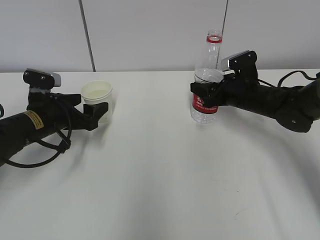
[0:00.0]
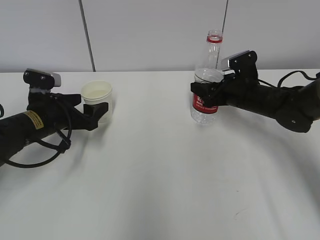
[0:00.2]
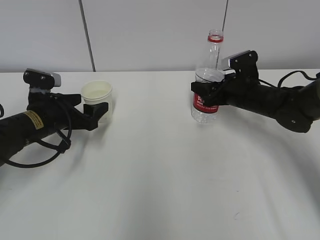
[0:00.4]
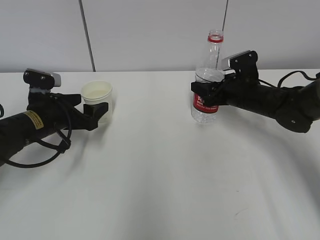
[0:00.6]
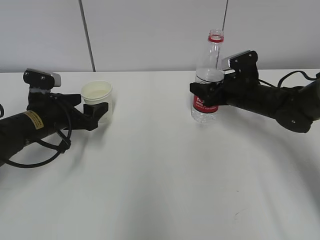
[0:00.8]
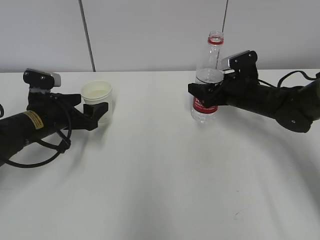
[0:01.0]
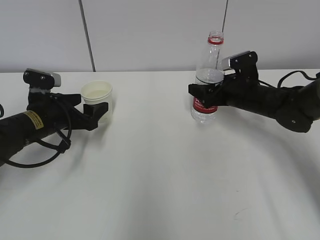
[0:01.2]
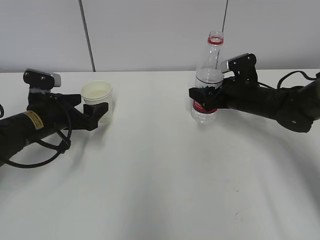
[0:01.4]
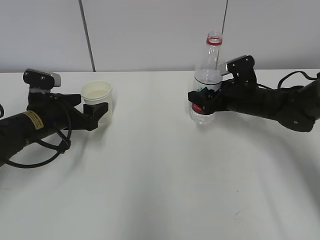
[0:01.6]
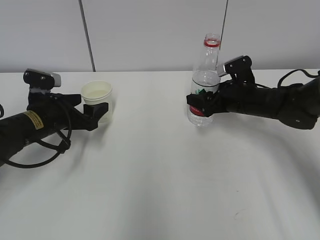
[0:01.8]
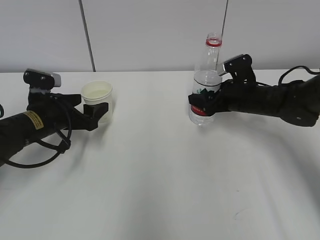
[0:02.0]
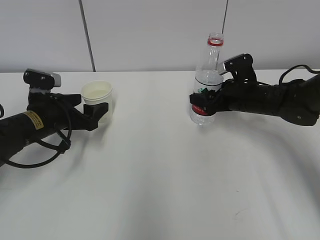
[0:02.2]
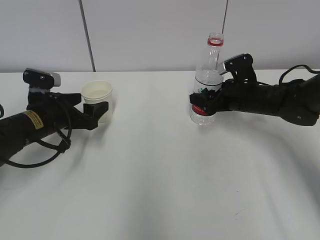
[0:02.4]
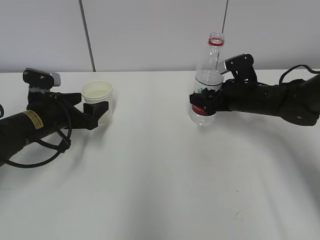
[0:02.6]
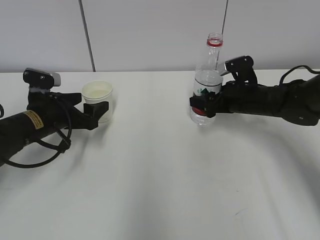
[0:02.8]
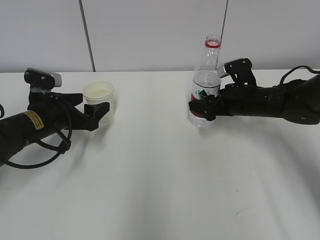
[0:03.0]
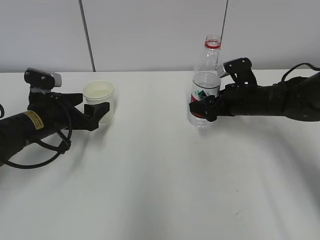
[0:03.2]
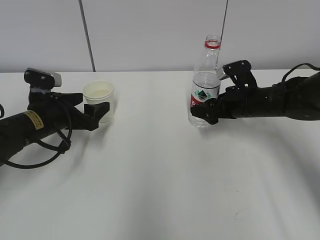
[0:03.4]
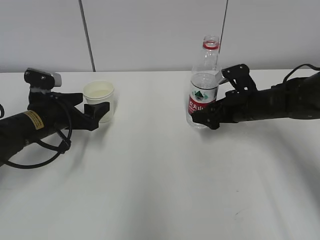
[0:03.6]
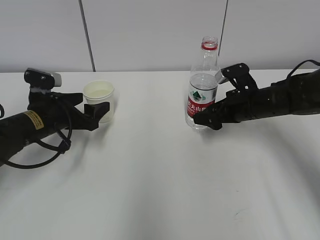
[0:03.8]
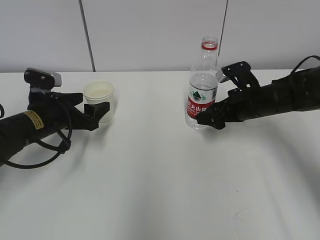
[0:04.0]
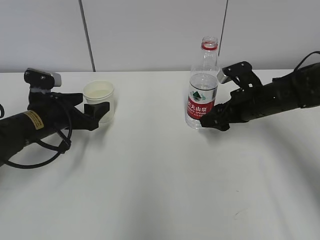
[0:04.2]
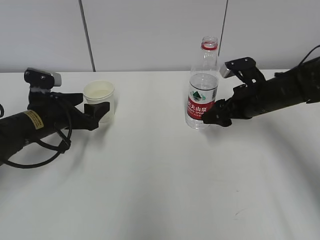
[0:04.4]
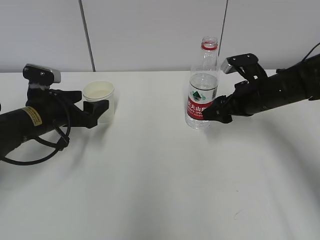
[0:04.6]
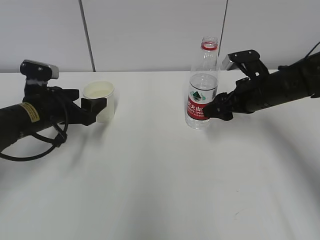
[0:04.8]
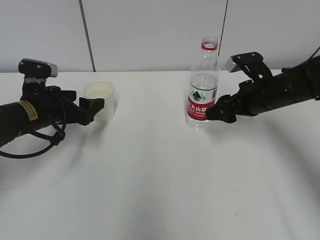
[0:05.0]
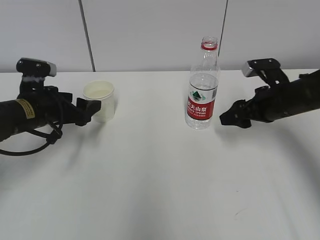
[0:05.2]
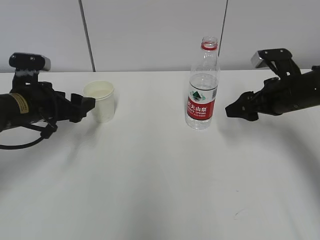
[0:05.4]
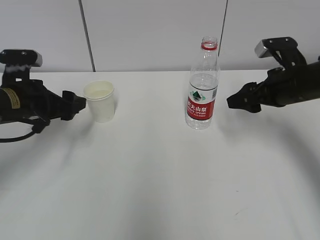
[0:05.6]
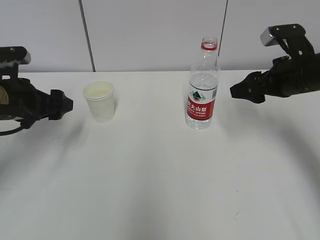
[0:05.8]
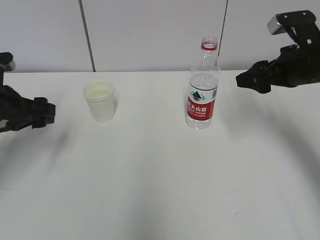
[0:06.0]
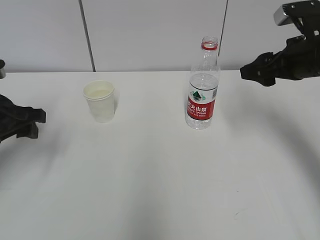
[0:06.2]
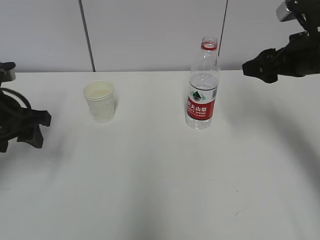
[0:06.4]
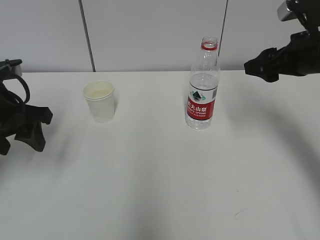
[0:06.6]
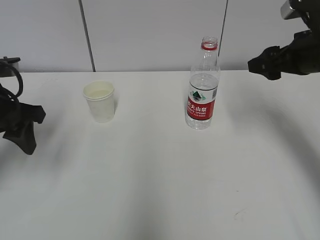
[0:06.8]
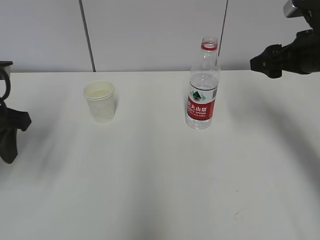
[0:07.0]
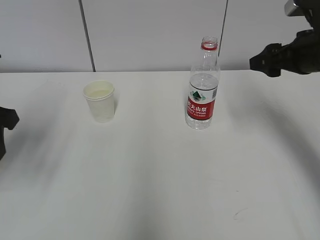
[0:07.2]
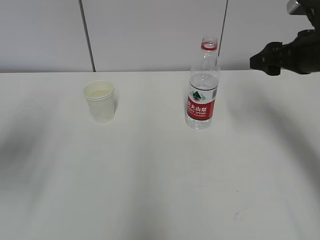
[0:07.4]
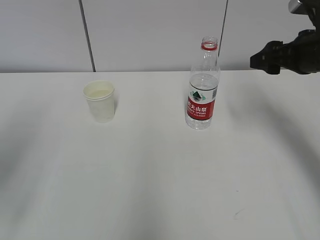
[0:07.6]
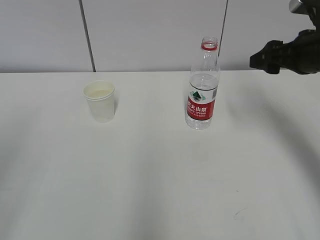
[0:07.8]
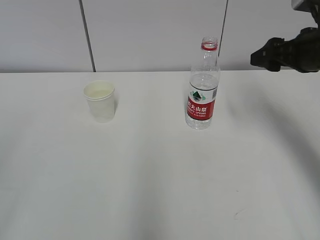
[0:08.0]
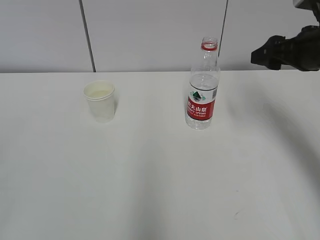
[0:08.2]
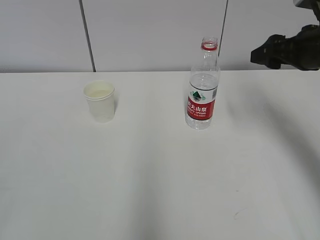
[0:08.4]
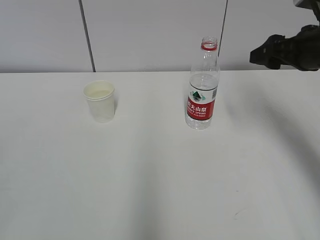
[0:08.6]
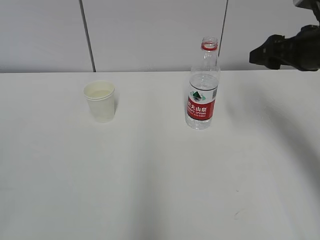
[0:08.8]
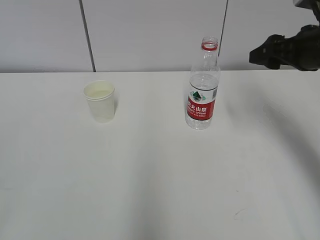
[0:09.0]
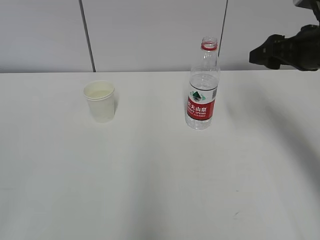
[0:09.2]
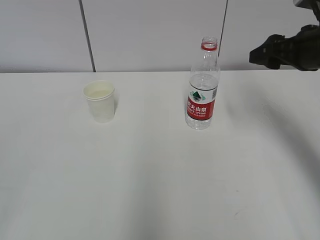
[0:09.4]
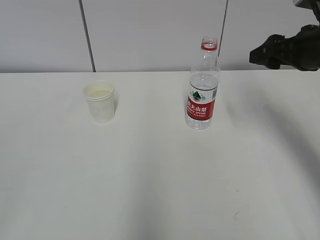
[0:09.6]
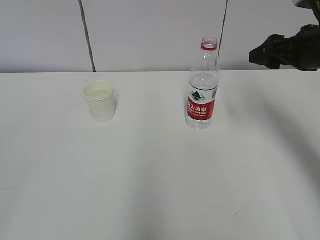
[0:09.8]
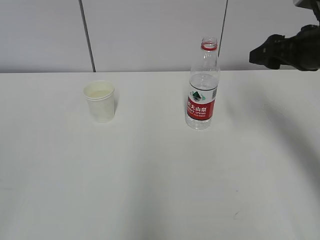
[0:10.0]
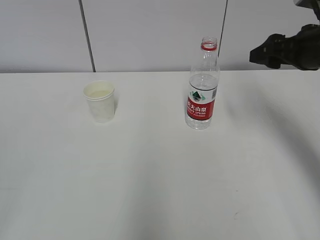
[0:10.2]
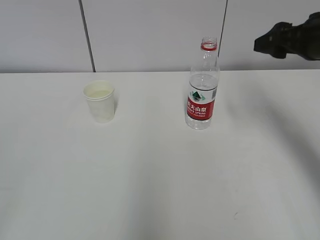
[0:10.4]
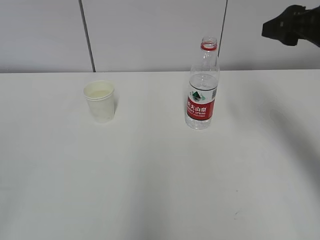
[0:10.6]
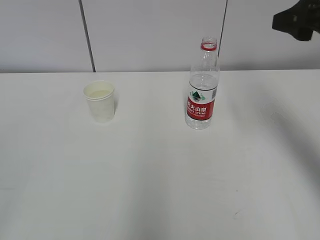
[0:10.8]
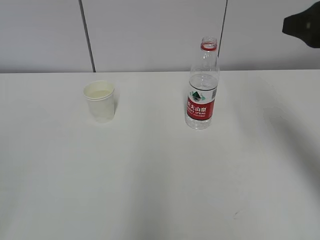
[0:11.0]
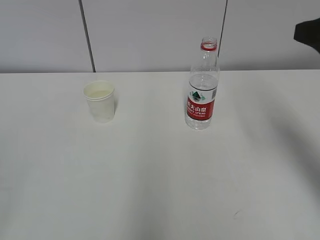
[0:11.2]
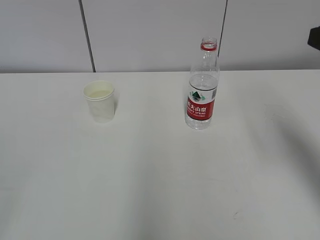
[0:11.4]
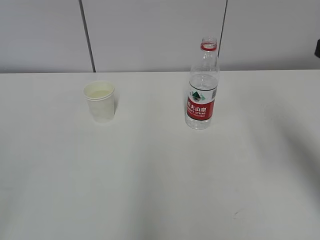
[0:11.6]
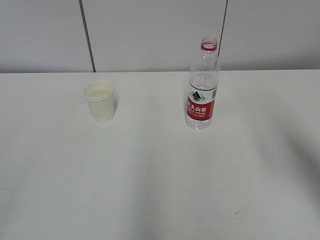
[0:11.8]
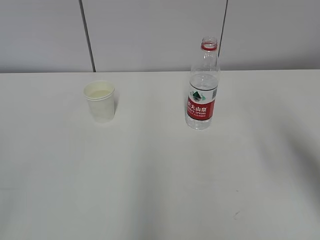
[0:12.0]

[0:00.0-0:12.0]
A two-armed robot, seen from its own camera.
0.0 to 1.6 s: The right gripper opens up.
1.6 to 3.0 s: There are only small adjustments of the grippers.
3.0 to 4.4 s: The grippers stay close to where they were, moving slightly.
4.4 to 6.0 s: The two grippers go some 10 cm upward.
6.0 to 7.6 s: The left gripper travels backward and upward by some 20 cm, and closes up.
7.6 to 9.0 s: The left gripper shifts some 15 cm backward.
9.0 to 10.4 s: There are only small adjustments of the grippers.
10.4 to 12.0 s: The right gripper heads backward, covering approximately 15 cm.

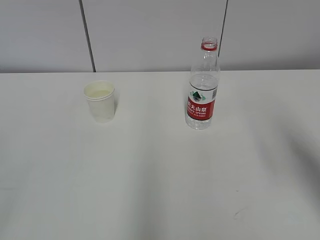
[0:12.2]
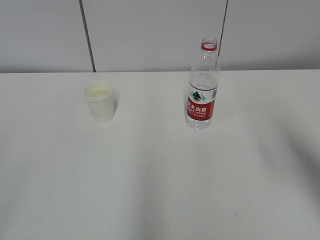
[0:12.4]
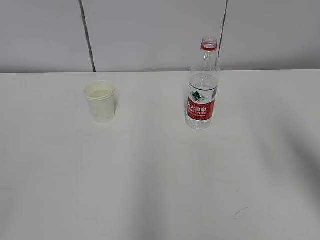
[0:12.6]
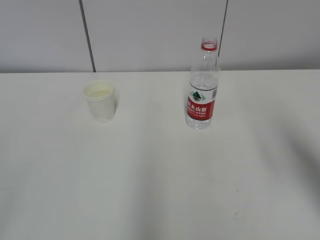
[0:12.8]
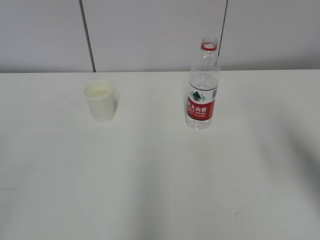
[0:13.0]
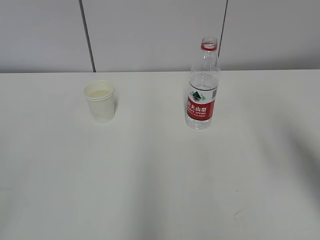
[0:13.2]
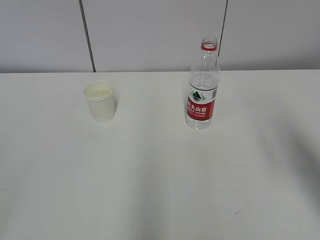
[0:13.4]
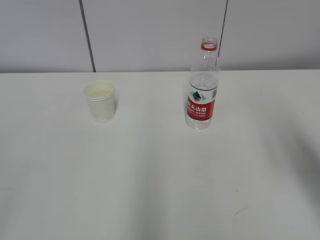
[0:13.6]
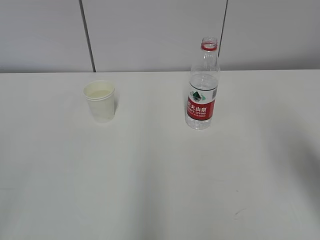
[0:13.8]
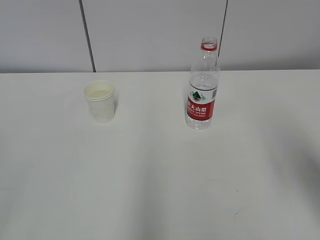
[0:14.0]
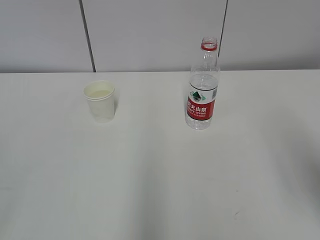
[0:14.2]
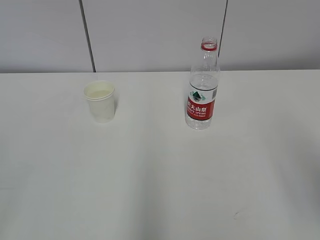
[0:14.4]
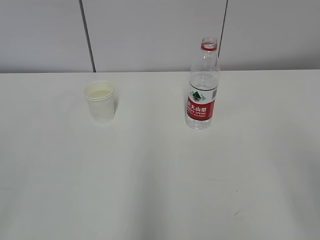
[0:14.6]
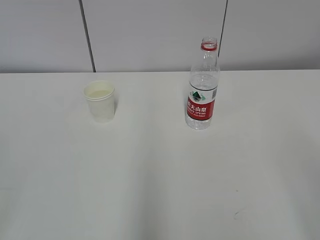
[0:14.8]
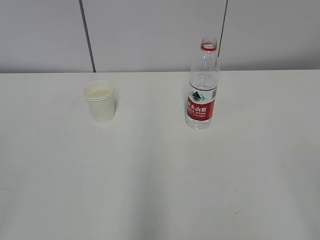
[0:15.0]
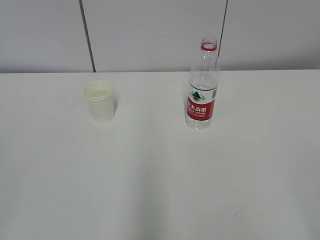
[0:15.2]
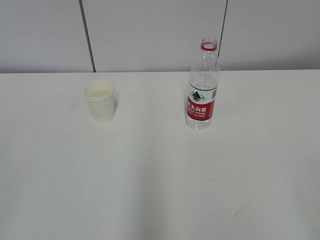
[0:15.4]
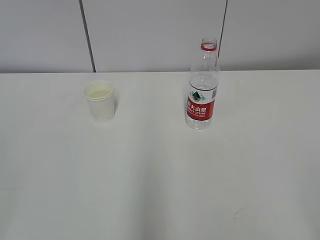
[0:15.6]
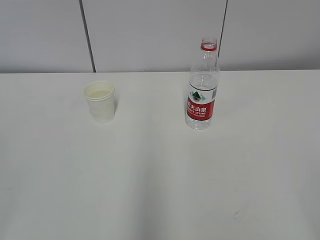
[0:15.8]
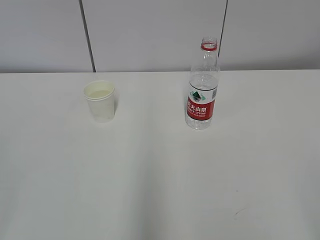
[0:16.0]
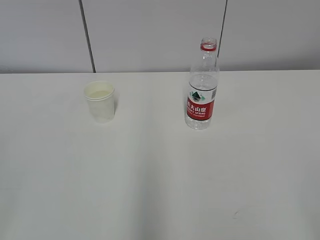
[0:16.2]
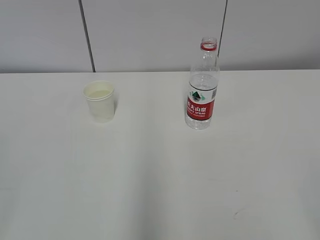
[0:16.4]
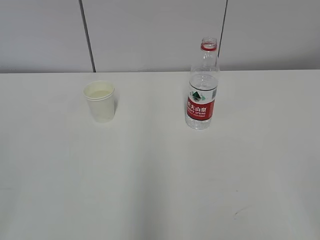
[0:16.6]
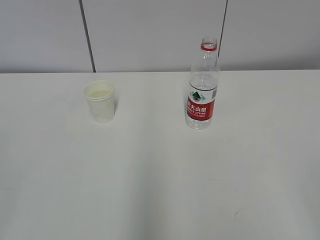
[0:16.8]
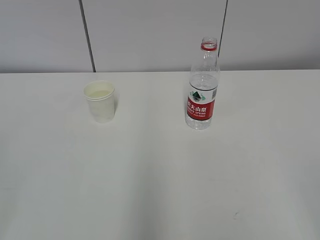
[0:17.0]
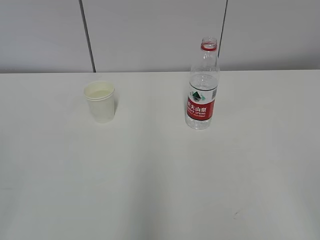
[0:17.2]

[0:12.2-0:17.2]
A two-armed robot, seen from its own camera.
13.8 to 15.6 s: The right gripper heads backward, covering roughly 20 cm.
15.6 to 17.2 s: Both grippers stay put.

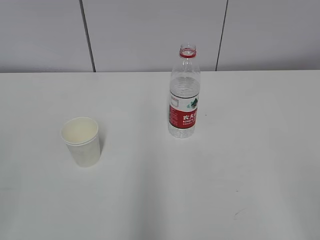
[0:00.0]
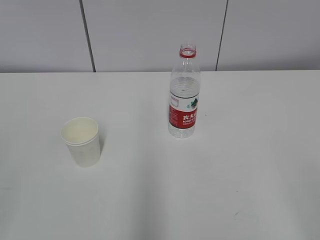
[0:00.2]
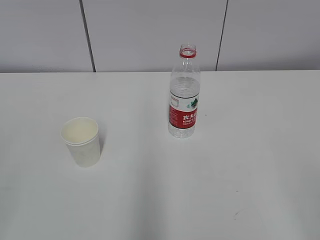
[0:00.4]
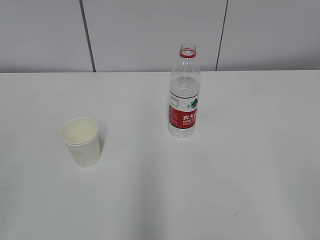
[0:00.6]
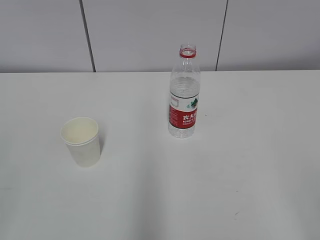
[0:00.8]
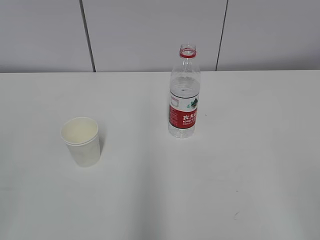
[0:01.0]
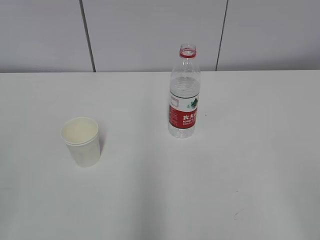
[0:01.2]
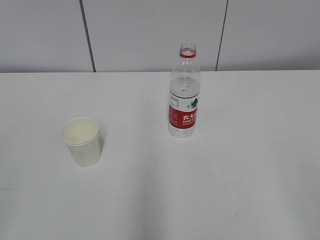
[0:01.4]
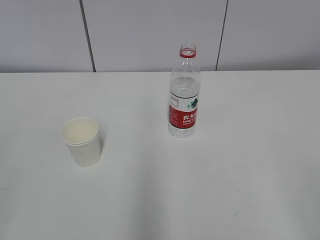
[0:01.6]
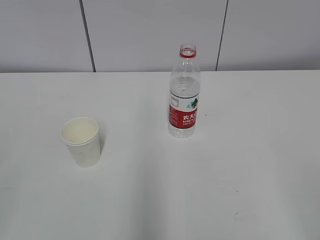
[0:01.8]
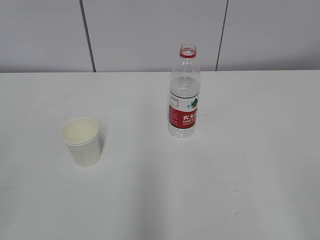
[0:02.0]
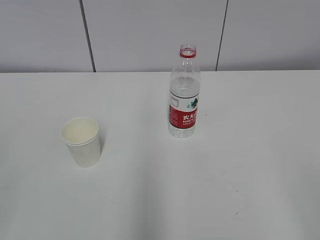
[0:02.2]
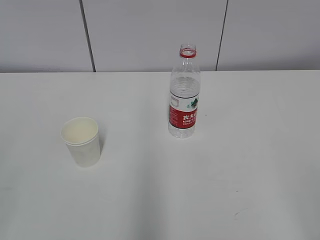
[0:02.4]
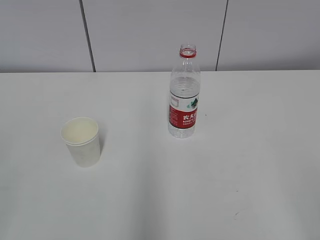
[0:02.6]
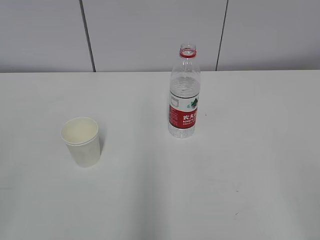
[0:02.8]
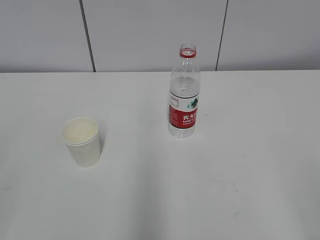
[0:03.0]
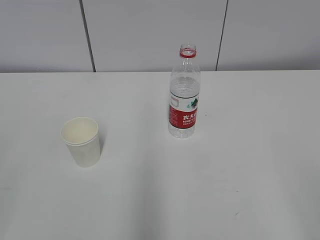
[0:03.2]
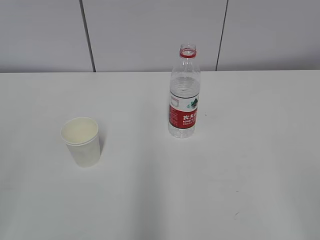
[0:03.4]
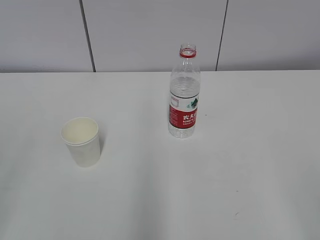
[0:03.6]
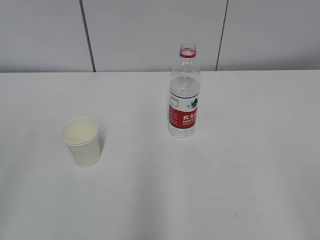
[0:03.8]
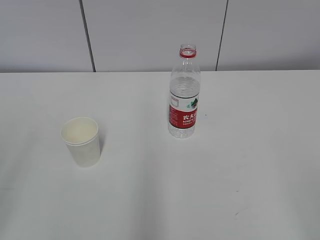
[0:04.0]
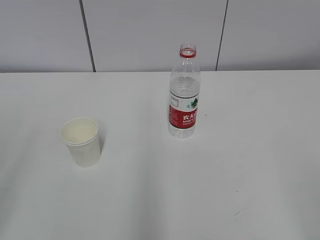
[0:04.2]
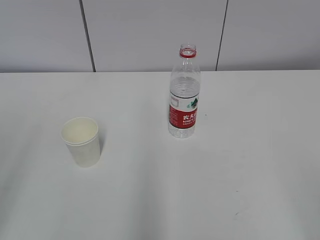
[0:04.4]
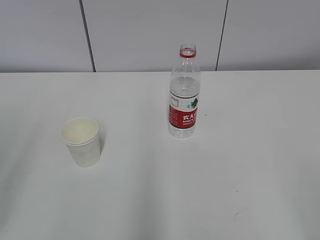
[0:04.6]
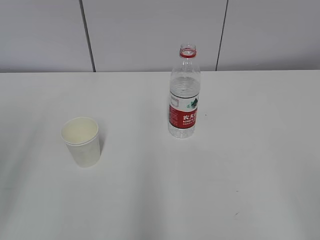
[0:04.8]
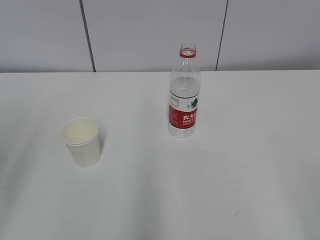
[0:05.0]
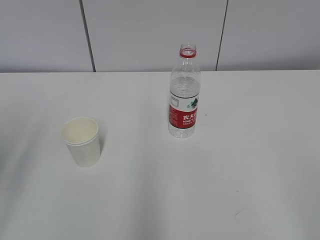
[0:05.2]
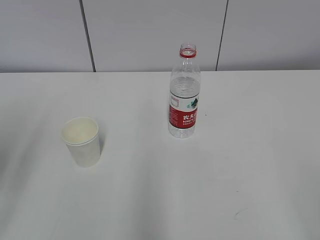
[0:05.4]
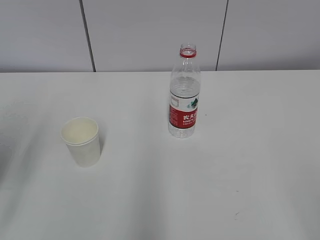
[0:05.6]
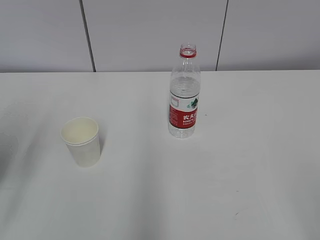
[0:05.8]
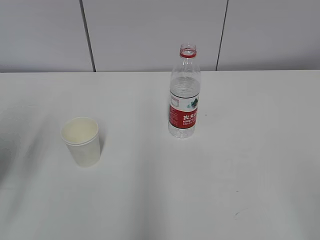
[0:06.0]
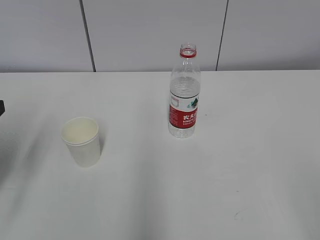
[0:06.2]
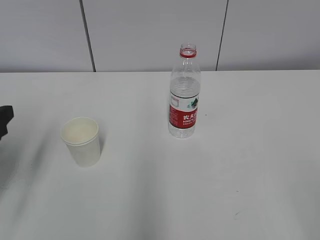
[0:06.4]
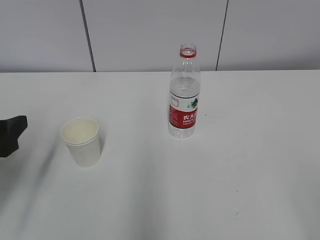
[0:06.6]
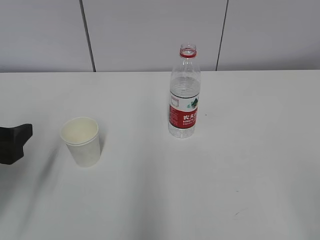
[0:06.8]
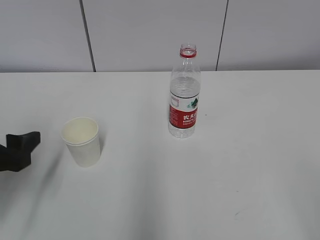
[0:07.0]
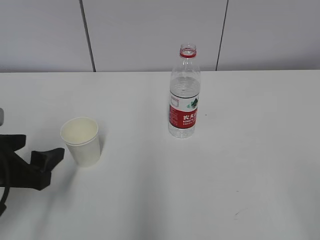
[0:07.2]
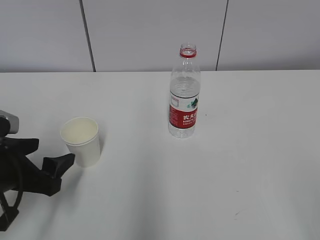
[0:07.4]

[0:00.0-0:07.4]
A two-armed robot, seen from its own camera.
1.4 to 3.0 s: The two grippers keep their place.
4.4 to 6.0 s: The left gripper travels forward and downward by roughly 15 cm.
6.0 to 7.4 s: The left gripper is displaced downward and to the right by about 10 cm.
